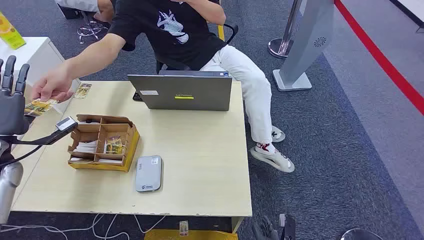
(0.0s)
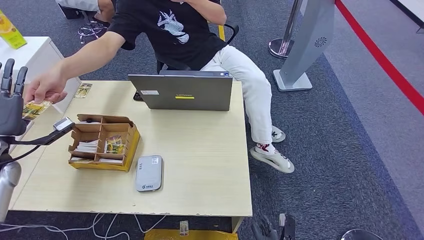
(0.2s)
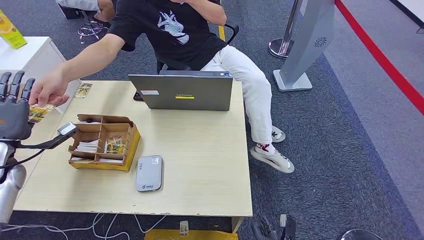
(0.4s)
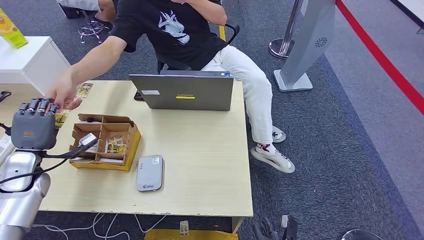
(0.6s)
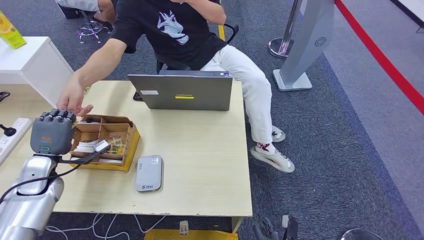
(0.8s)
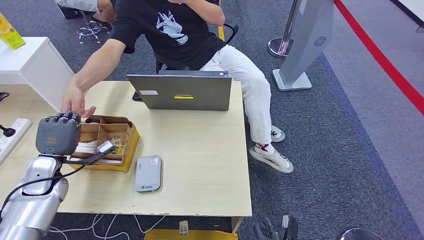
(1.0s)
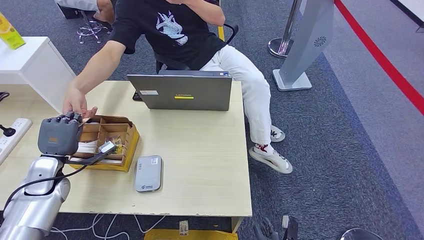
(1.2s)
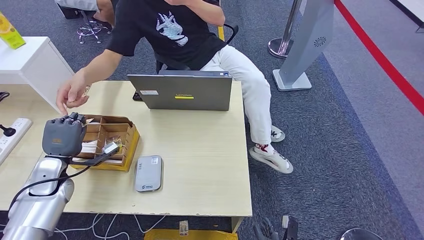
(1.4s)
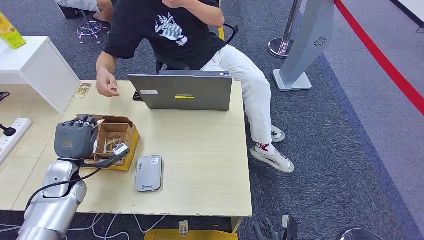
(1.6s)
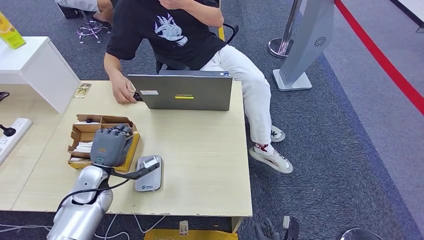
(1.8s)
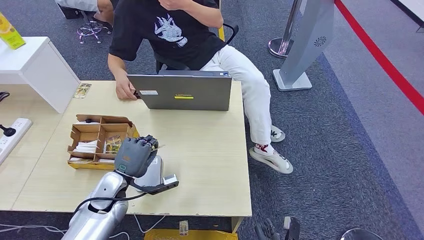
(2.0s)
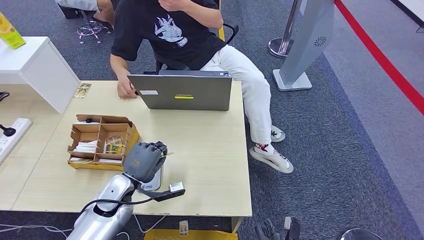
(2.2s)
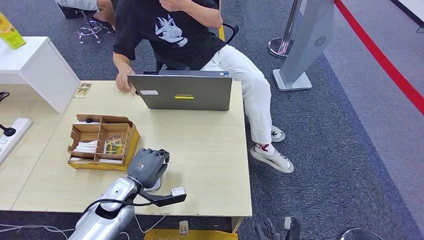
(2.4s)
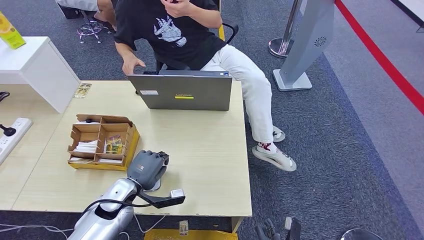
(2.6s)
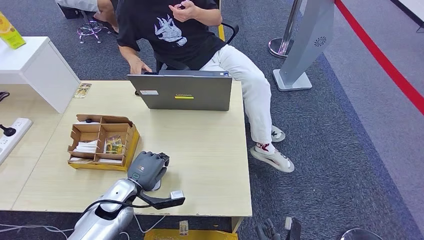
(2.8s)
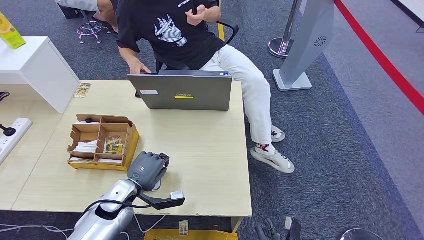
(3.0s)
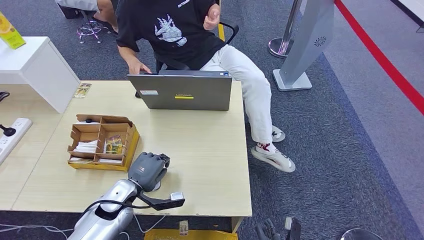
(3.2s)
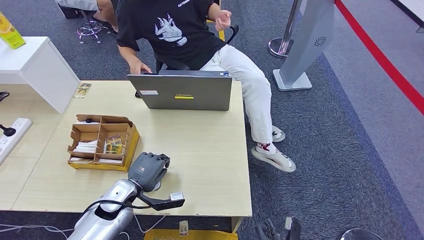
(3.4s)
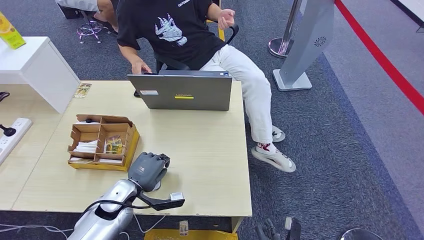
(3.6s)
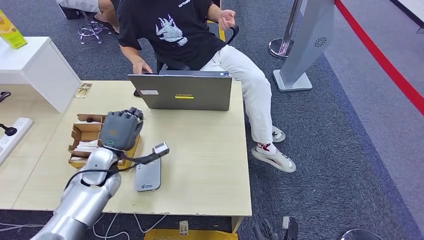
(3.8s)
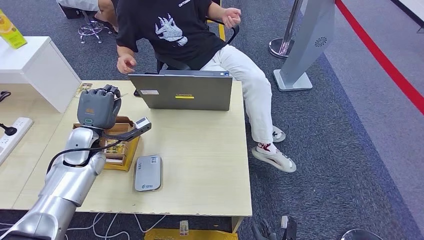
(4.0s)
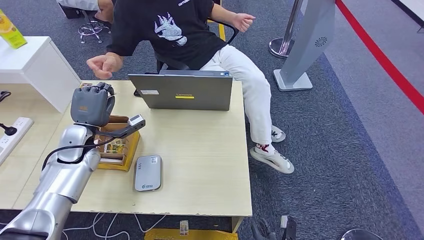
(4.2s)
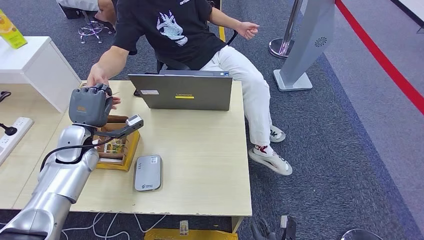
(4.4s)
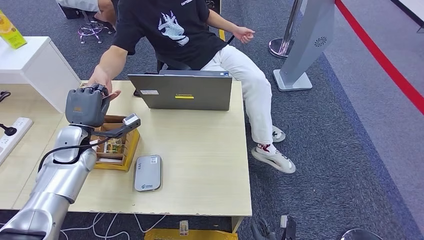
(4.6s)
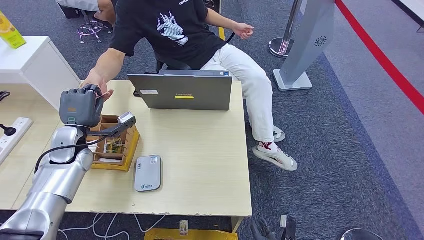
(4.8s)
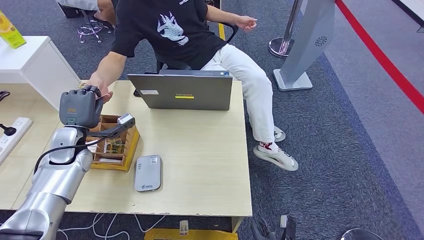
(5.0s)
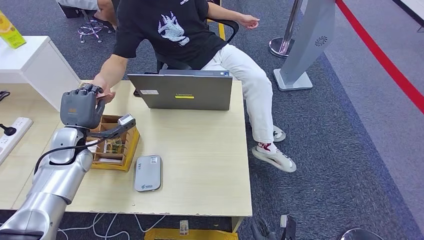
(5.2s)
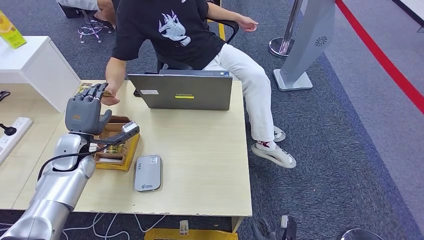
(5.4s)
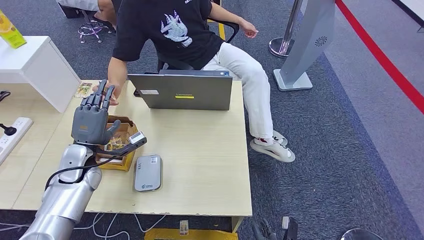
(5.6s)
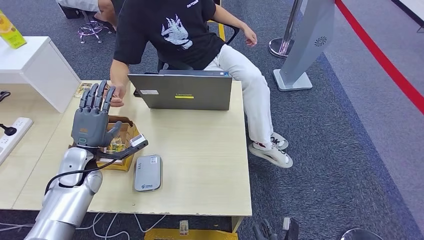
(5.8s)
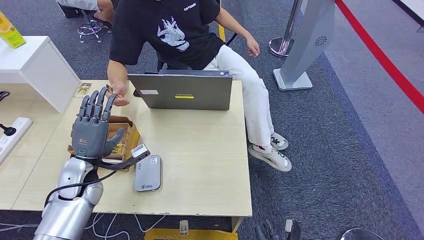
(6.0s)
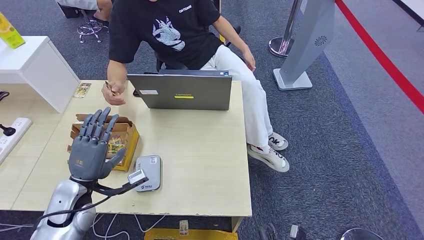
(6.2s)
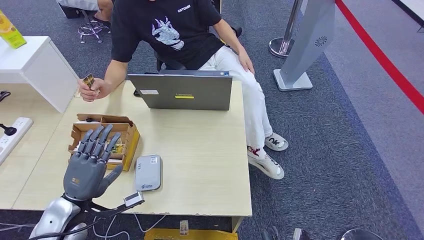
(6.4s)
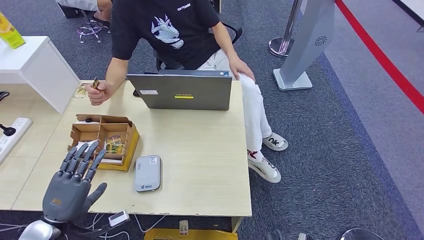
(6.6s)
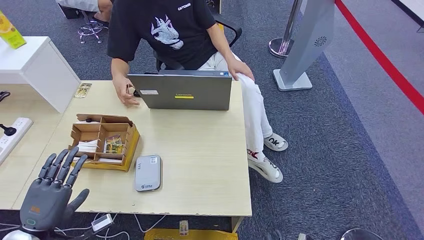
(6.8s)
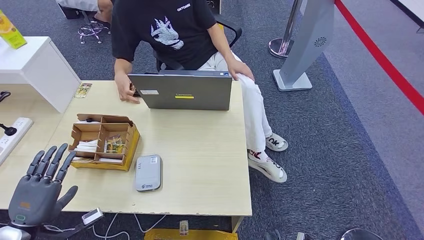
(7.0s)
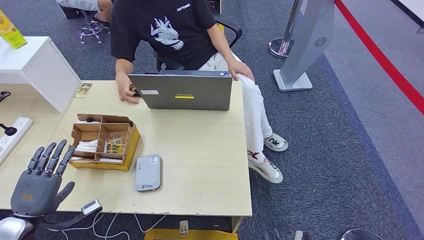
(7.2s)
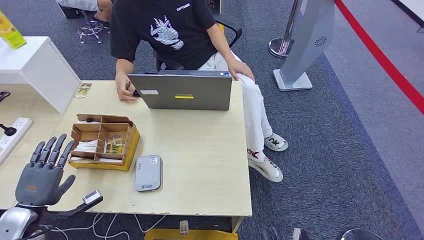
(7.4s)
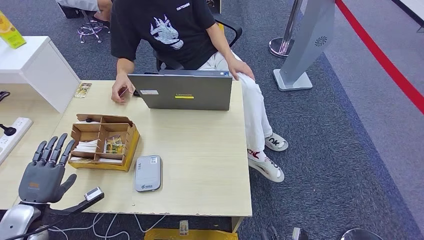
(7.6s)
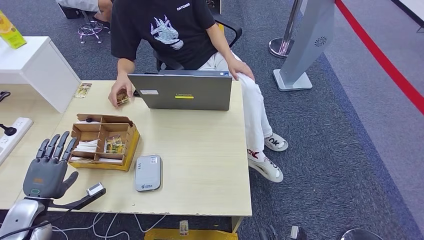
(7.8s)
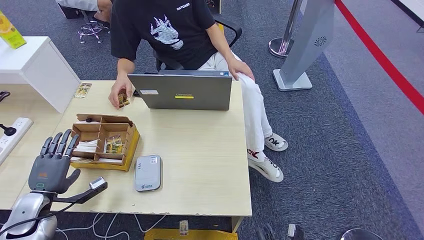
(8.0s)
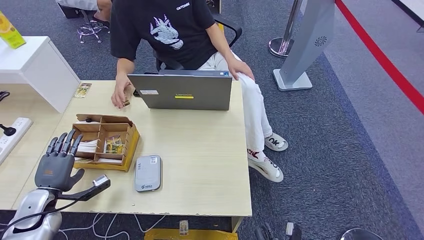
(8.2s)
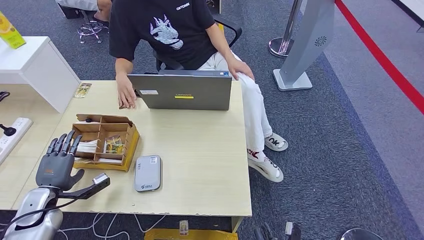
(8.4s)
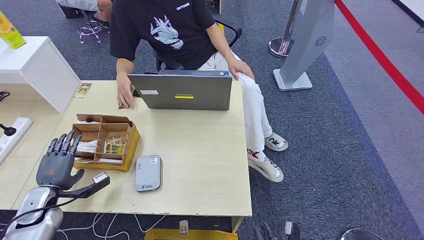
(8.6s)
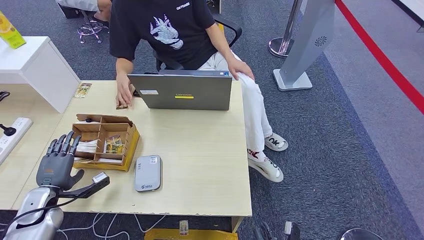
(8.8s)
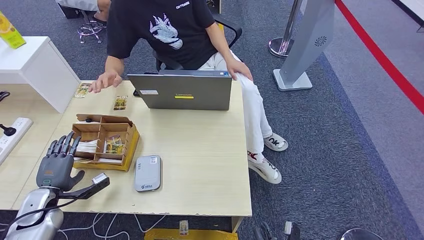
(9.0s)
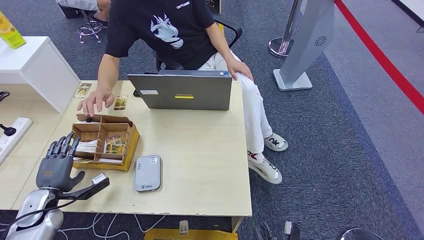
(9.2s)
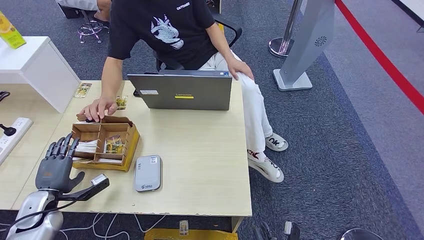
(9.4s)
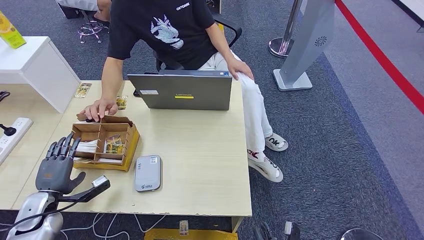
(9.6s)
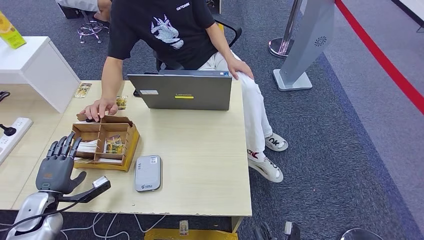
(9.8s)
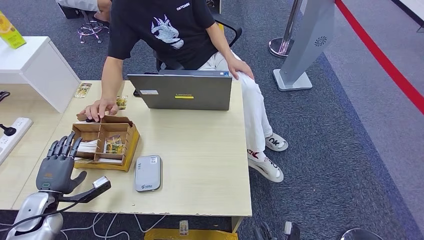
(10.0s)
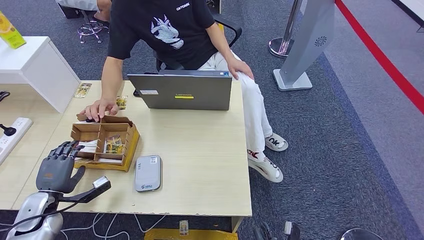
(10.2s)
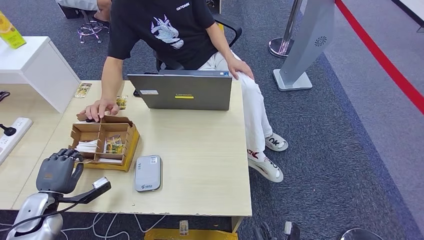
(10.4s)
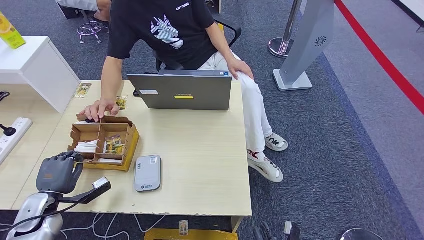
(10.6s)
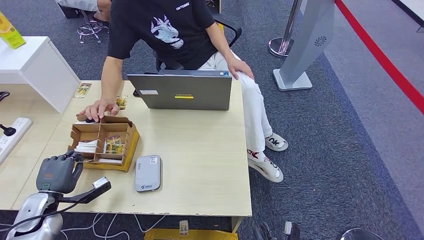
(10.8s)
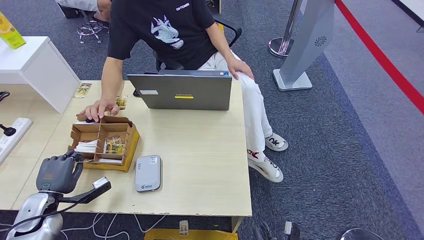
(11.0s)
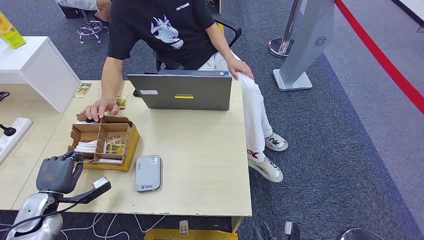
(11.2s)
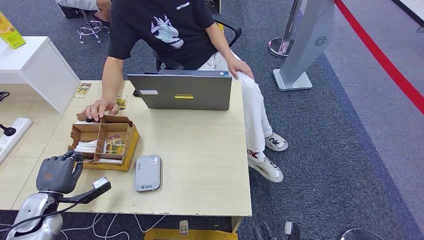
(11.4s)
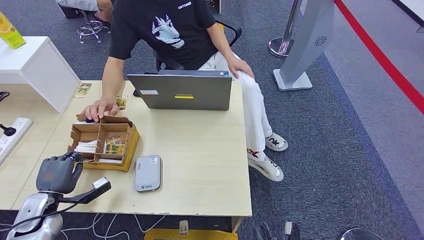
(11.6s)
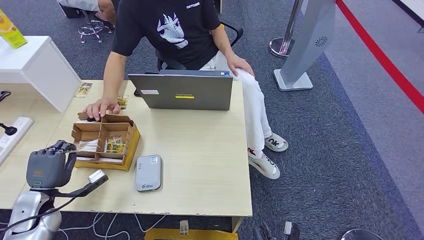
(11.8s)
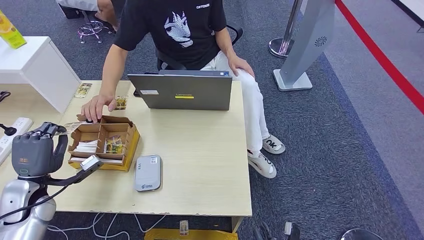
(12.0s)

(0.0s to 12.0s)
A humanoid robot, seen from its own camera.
Step, 0.0s - 1.8s: Take the ID card from the person's hand.
Step, 2.2s - 3.4s: Place the ID card on the card reader.
Step, 3.6s - 5.8s: Hand the ID card to the person.
1.6s - 3.0s: The left hand shifts some 15 cm to the right.
3.0s - 4.4s: The left hand goes some 20 cm forward, upward and to the left.
4.4s - 6.0s: The left hand shifts about 5 cm backward.
6.0s - 7.6s: The left hand goes approximately 15 cm to the left and backward.
7.6s - 9.0s: The left hand shifts by some 5 cm.
9.0s - 10.4s: The hands move only a little.
10.4s - 12.0s: The left hand is displaced upward by about 5 cm.

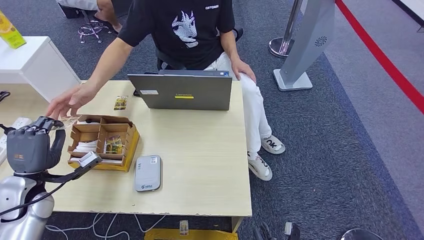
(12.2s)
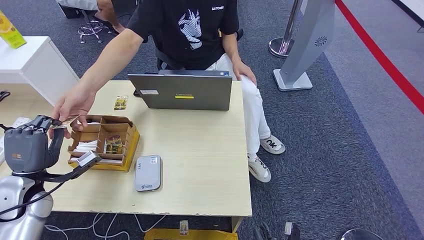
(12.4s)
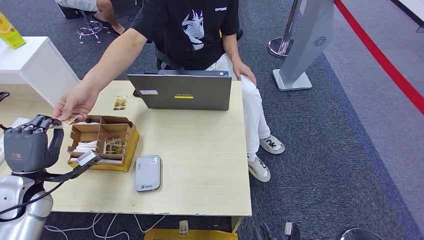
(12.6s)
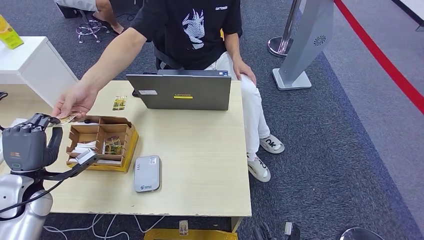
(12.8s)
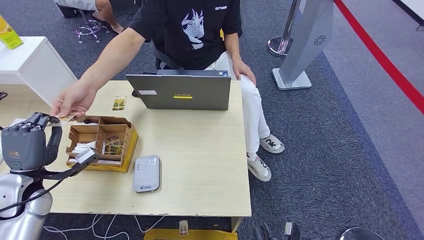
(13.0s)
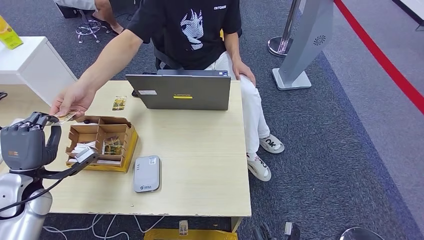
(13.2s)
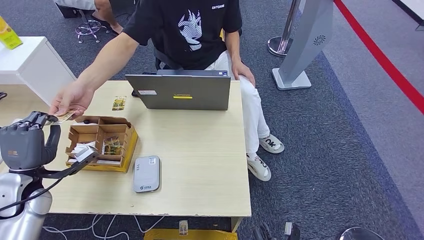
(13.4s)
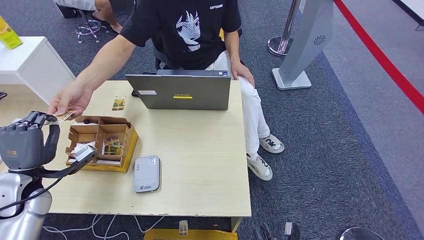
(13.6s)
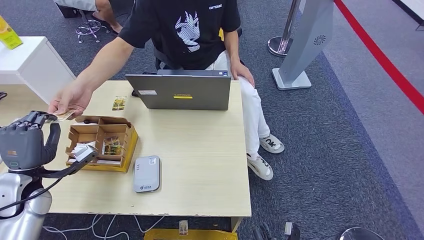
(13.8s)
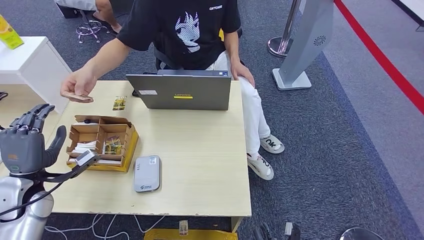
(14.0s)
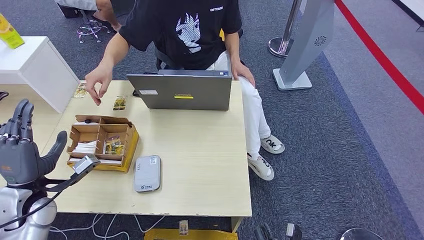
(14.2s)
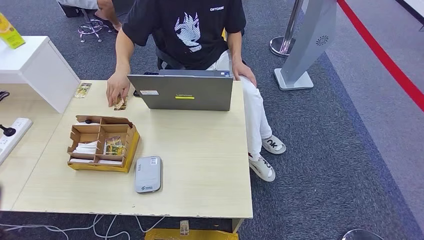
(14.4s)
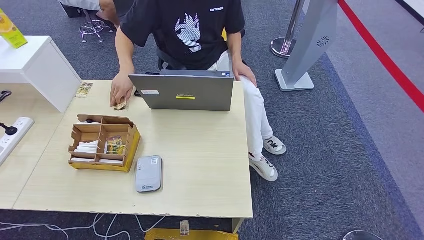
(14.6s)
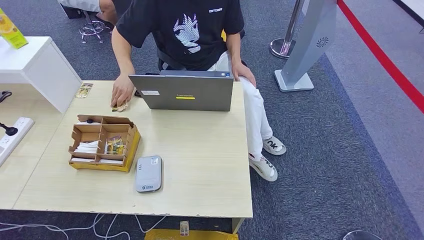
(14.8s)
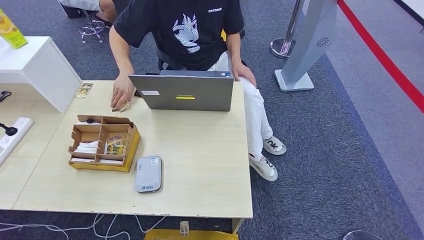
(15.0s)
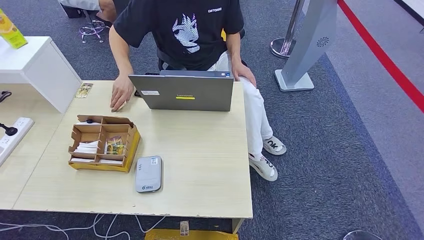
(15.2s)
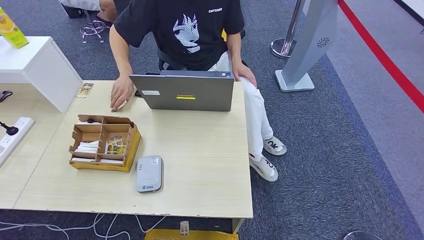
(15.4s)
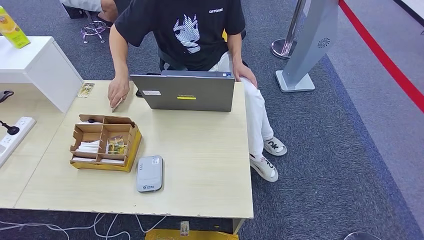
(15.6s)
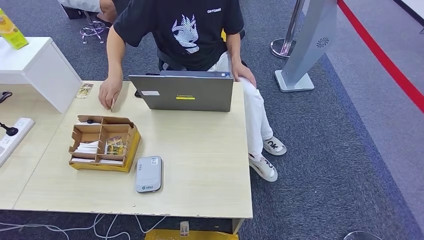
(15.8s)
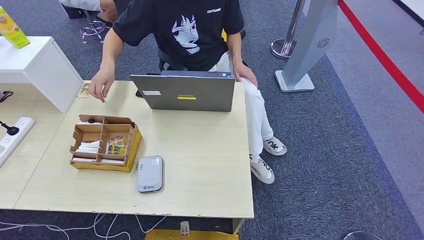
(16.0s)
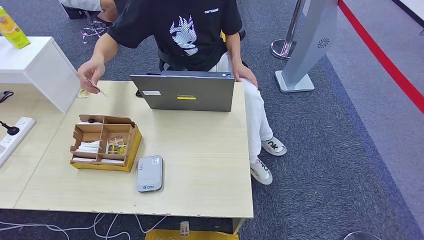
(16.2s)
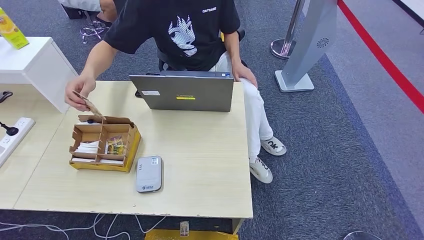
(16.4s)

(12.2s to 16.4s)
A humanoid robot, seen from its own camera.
Step, 12.8s - 16.4s: Hand the room key to the person.
12.2s - 13.6s: Both hands stay about where they are.
15.0s - 16.4s: The left hand travels downward and to the right by roughly 25 cm.
